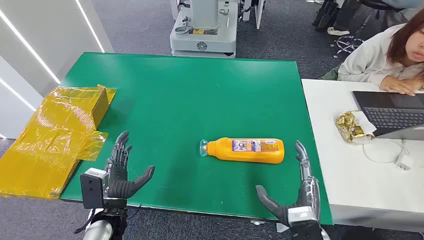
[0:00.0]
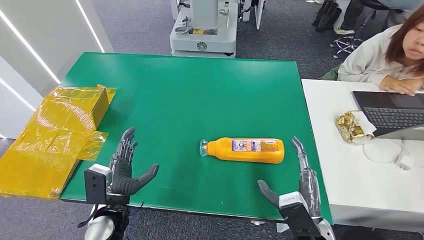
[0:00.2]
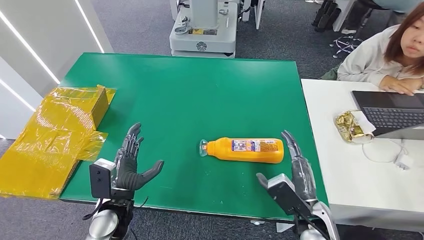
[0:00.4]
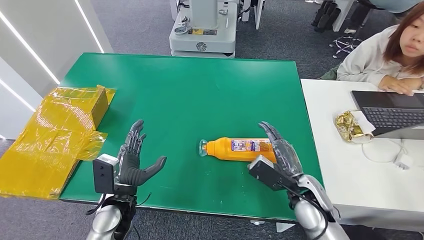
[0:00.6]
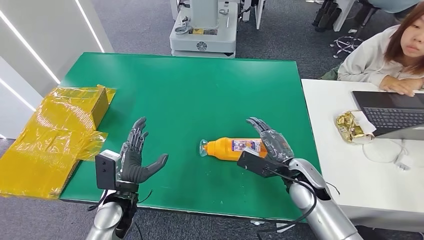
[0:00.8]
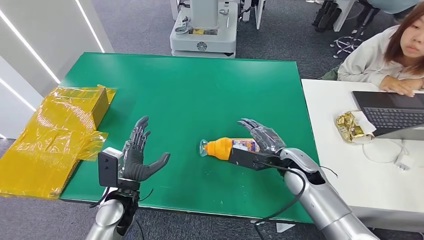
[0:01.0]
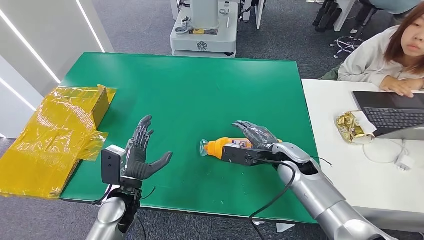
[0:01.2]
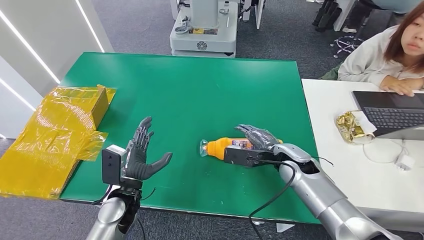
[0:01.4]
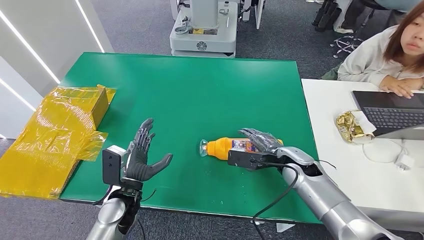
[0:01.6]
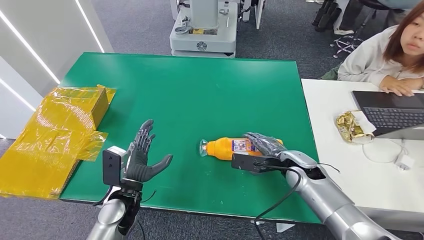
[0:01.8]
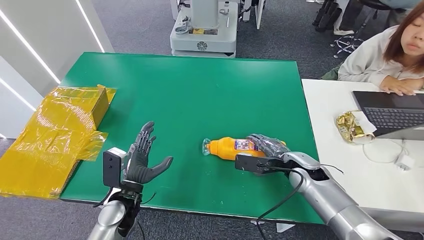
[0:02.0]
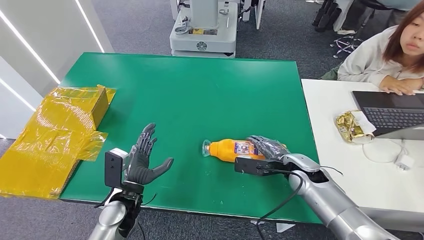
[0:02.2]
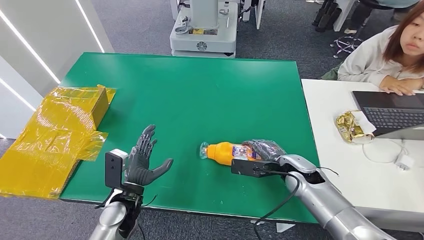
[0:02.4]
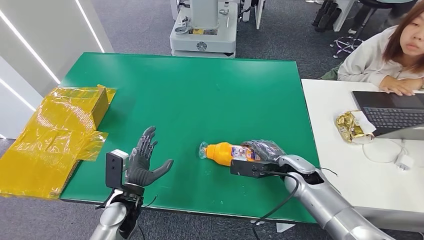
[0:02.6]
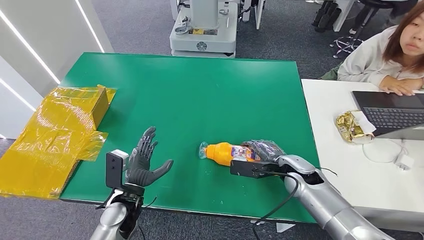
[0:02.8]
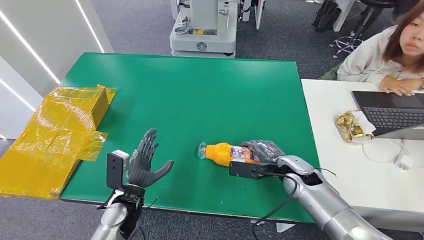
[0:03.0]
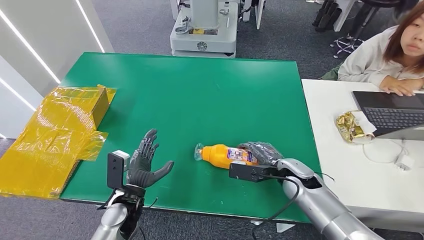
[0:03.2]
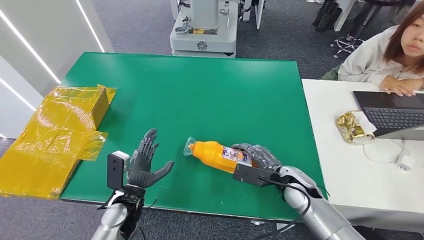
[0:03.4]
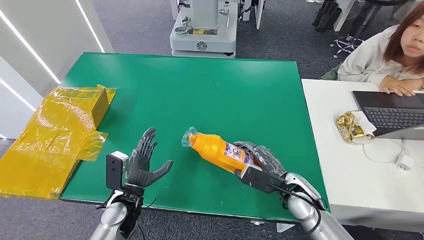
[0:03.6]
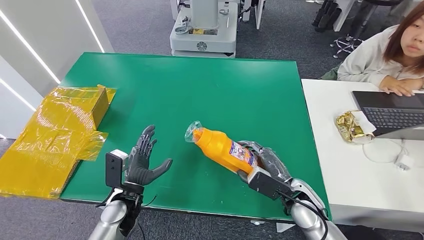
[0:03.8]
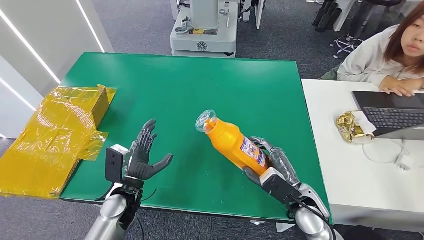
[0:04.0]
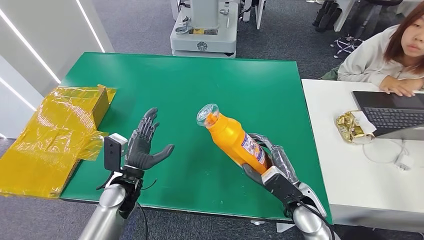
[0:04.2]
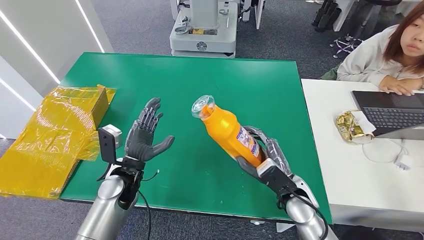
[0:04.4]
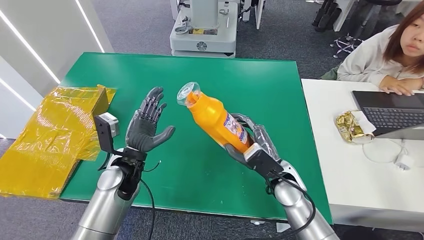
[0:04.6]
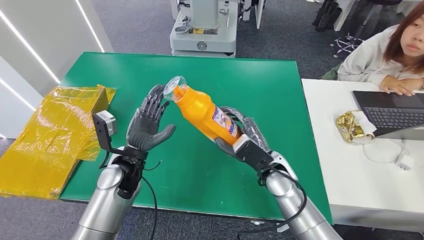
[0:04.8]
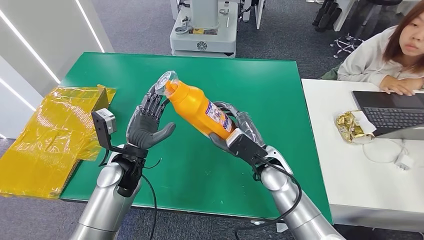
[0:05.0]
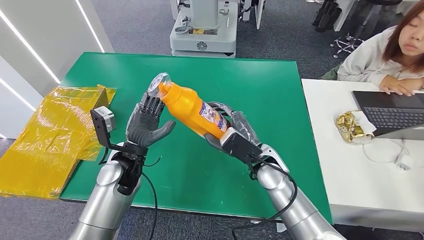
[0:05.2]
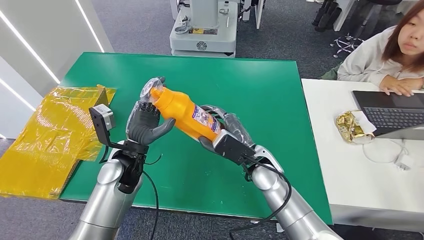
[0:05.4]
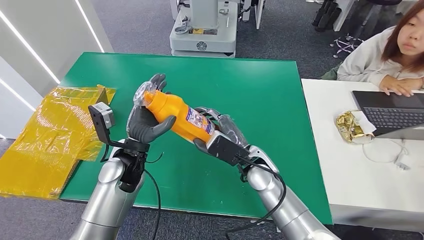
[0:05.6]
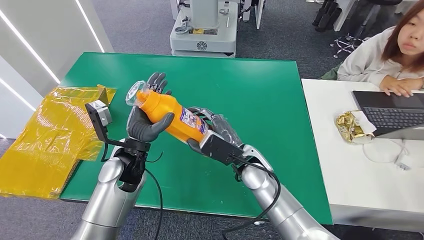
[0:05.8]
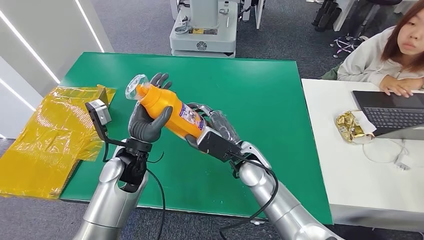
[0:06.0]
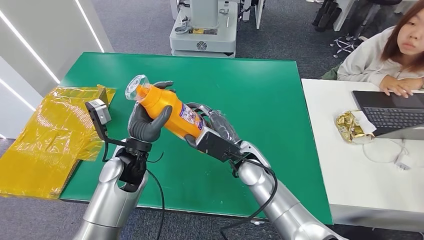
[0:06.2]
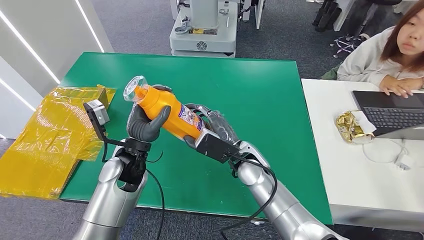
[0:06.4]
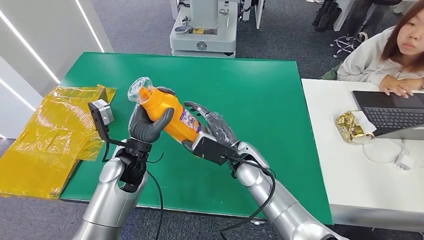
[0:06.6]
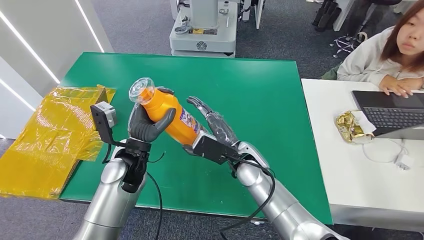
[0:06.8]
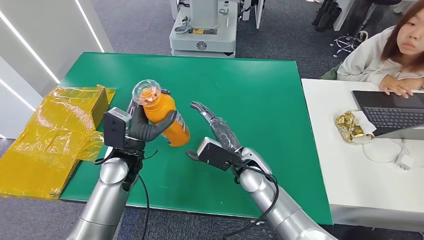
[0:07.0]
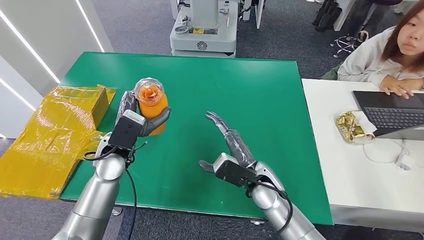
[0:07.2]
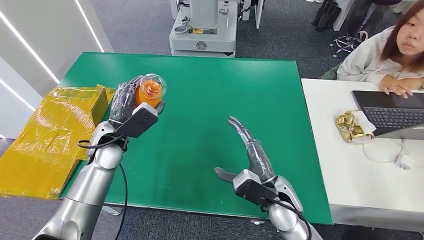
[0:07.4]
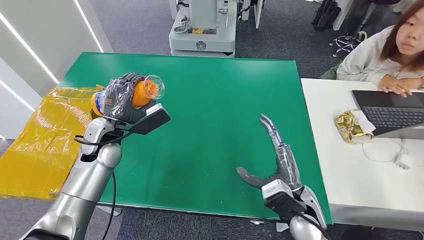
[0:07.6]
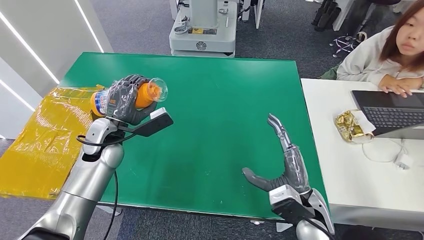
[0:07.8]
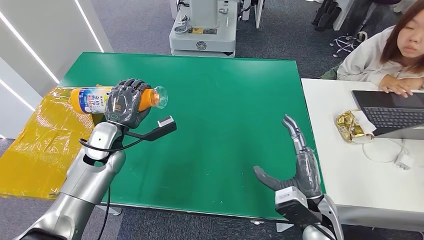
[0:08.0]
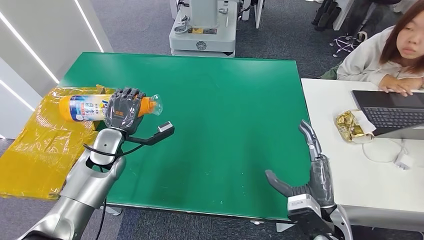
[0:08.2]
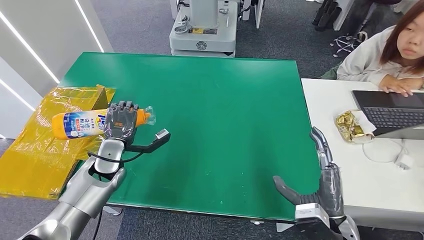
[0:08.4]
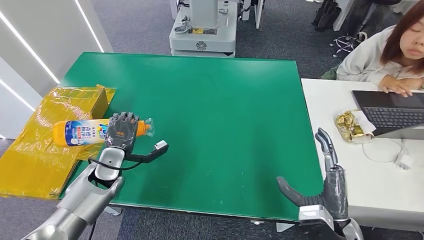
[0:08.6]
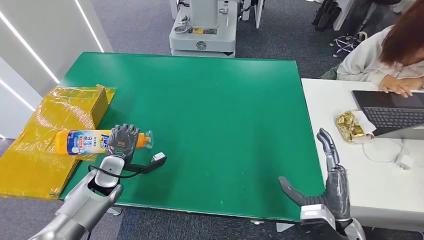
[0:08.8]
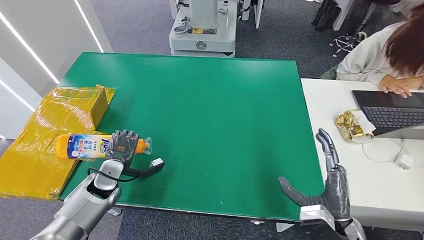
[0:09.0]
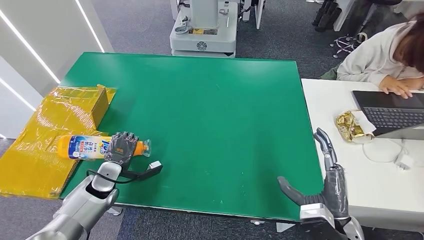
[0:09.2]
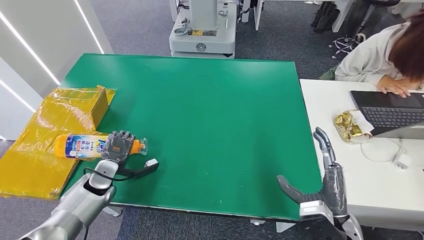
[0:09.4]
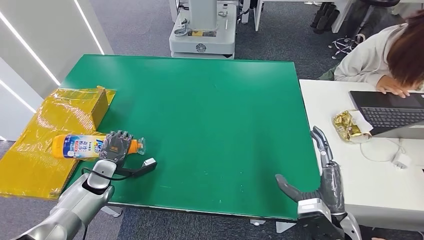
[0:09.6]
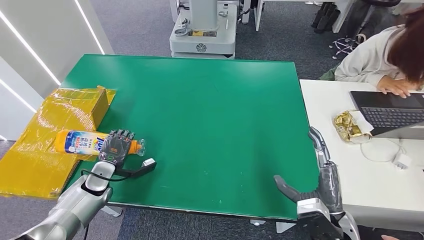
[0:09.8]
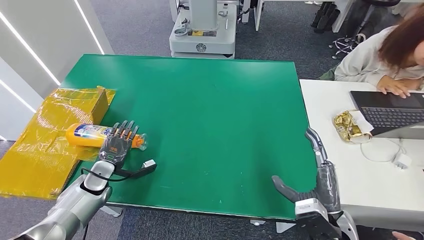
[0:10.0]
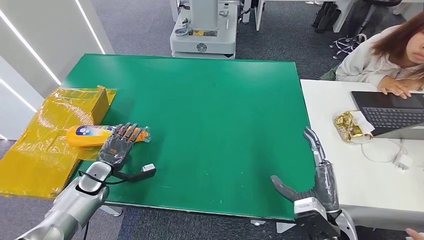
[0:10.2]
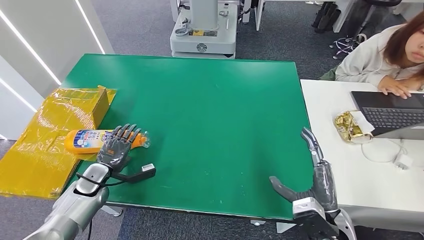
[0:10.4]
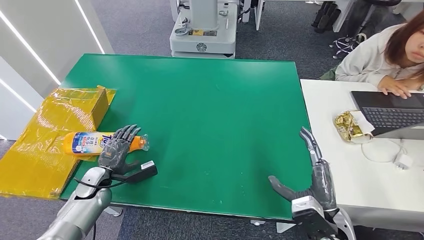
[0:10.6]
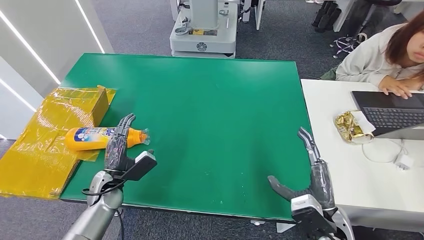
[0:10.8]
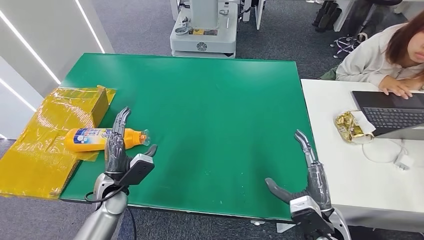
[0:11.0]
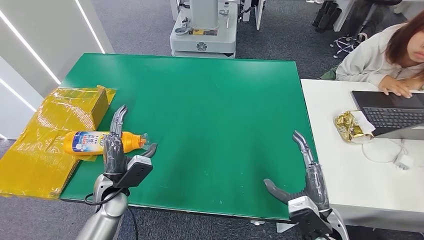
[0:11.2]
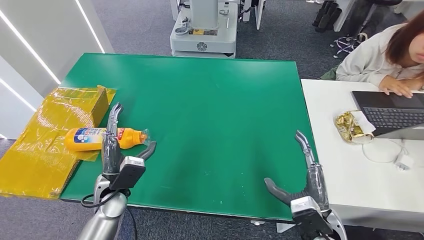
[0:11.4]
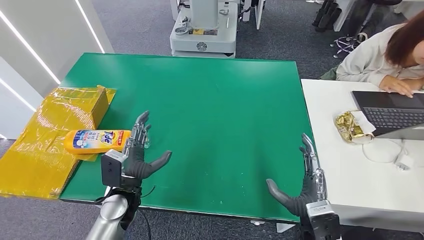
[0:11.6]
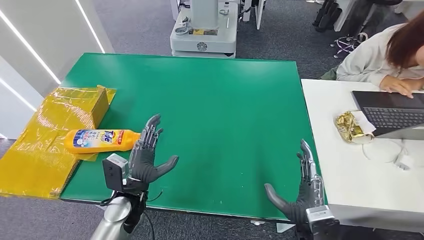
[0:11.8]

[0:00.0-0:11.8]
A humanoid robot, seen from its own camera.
Step, 0:00.0 to 0:03.8: Pick up the bottle from the table.
Step, 0:04.0 to 0:11.6: Turn the bottle to the front side.
0:01.4 to 0:03.0: The hands make only small movements.
0:03.0 to 0:04.4: The right hand travels backward by approximately 5 cm, while the left hand travels forward and upward by about 10 cm.
0:04.4 to 0:06.0: The left hand heads upward, covering some 5 cm. The right hand heads to the left, forward and upward, covering approximately 15 cm.
0:06.0 to 0:07.4: The left hand shifts approximately 5 cm to the left; the right hand is displaced to the right and backward by some 10 cm.
0:07.4 to 0:08.8: The right hand goes some 15 cm to the right and backward, while the left hand shifts some 10 cm downward.
0:08.8 to 0:10.4: The left hand heads to the left, covering approximately 5 cm.
0:10.4 to 0:11.8: The left hand travels to the right and upward by roughly 20 cm; the right hand shifts by some 5 cm.
